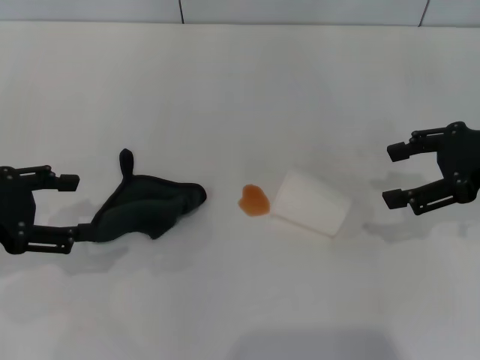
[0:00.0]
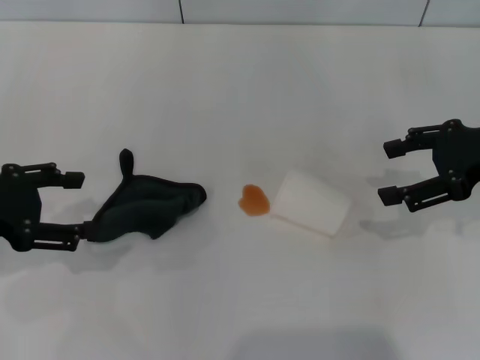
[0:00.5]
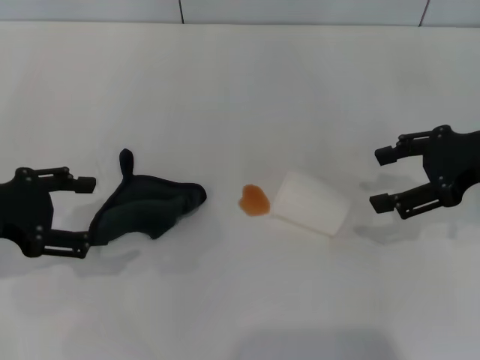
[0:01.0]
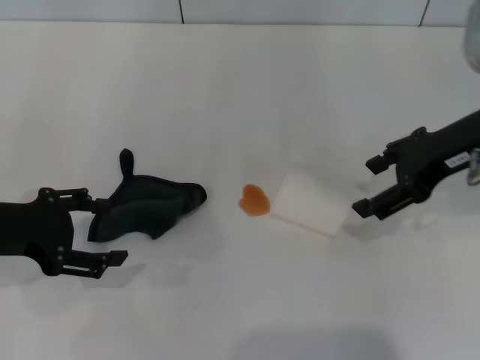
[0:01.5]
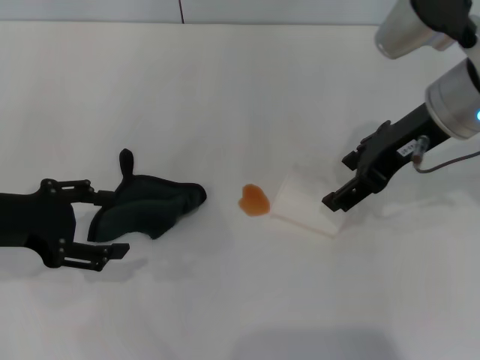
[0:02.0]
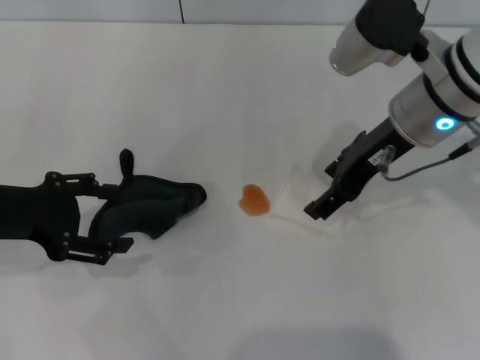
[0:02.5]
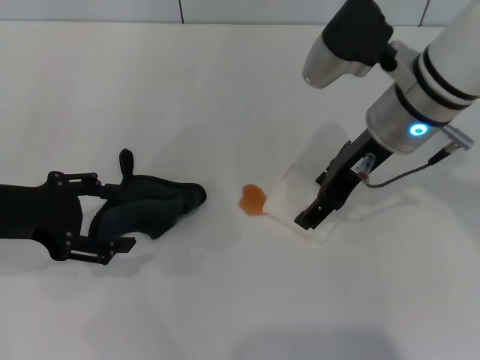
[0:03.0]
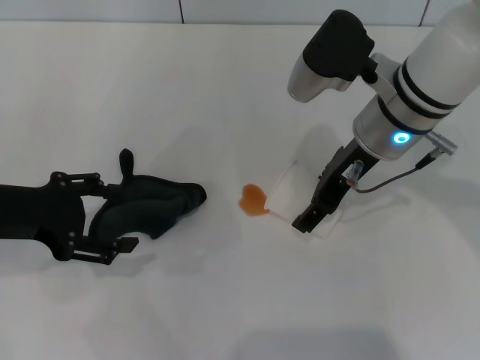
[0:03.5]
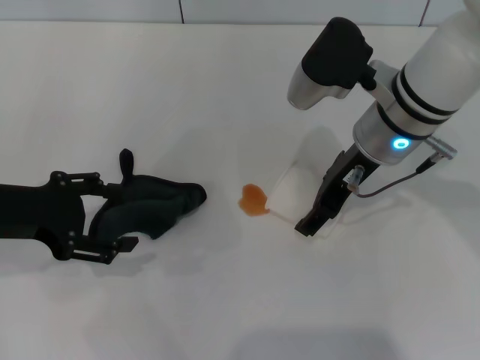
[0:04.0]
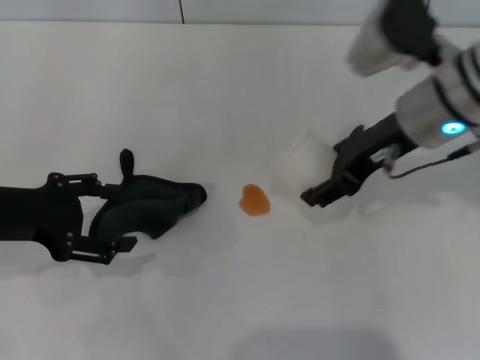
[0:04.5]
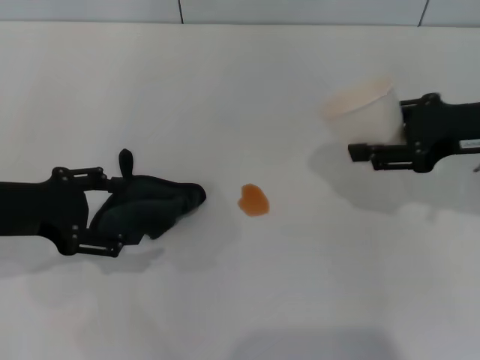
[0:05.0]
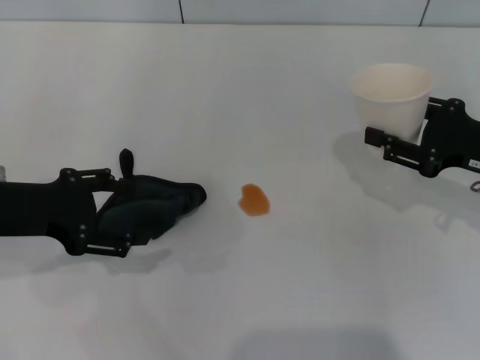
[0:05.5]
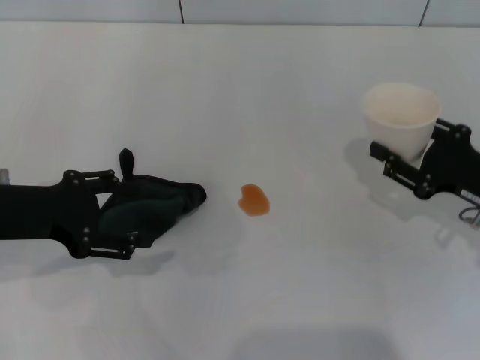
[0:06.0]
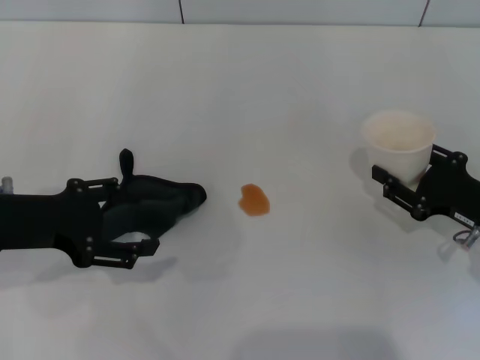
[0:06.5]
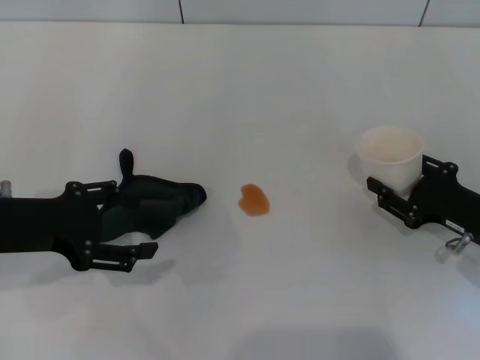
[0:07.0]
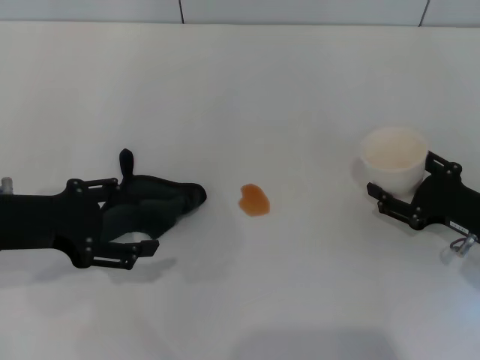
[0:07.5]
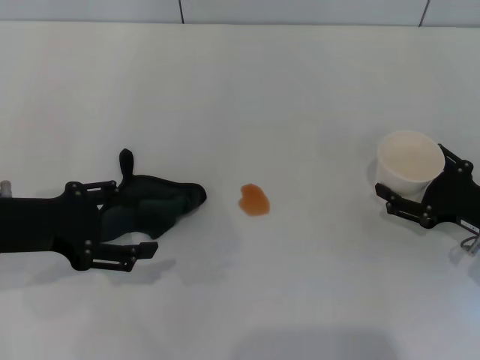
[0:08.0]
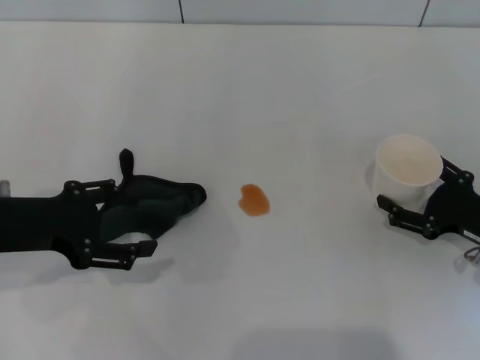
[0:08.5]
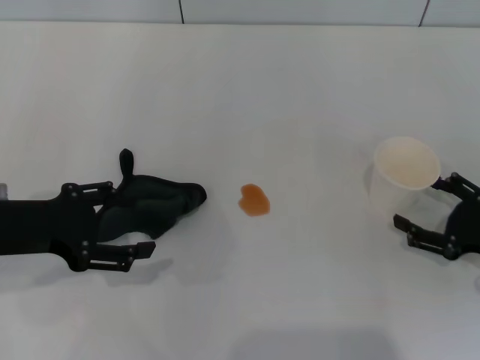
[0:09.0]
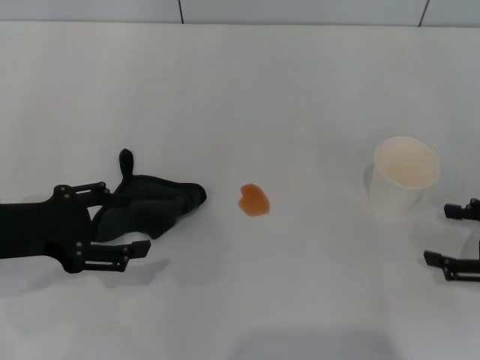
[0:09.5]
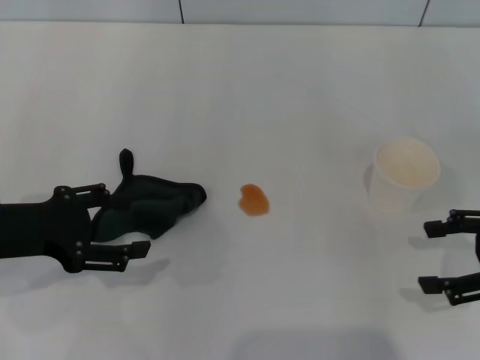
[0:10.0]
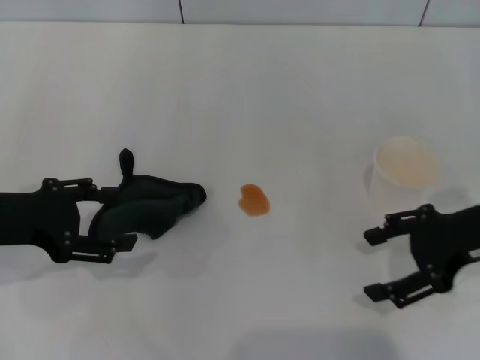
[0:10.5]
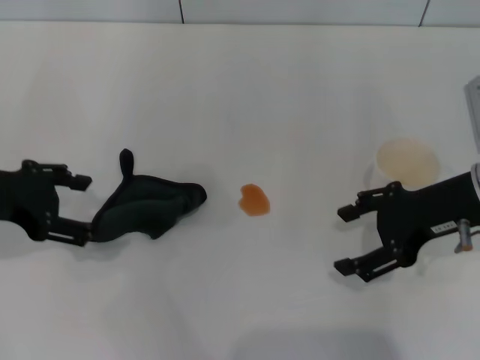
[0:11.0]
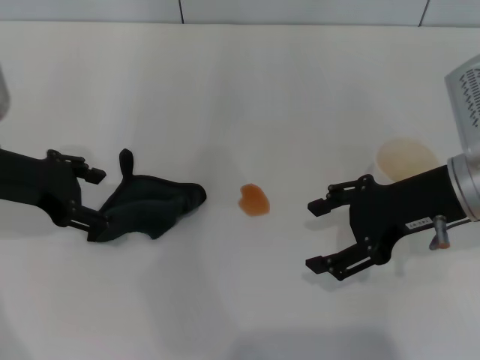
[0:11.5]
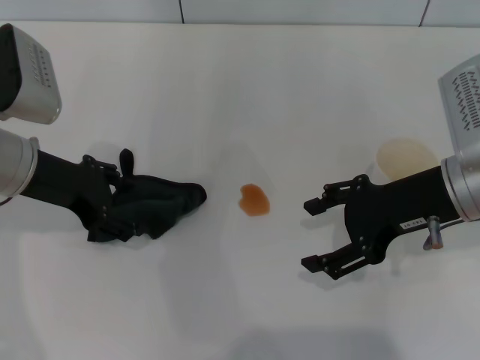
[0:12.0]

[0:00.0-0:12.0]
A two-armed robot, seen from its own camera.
Step, 0:00.0 to 0:04.0: Grasp the paper cup with the right gripper.
Step, 0:04.5 to 0:09.0: Stand the paper cup upright with the right gripper.
0:00.0 to 0:02.0: The right gripper travels to the left by about 10 cm.
0:02.0 to 0:04.0: The right gripper is displaced to the left by roughly 5 cm.
0:04.0 to 0:06.0: The right gripper moves to the right, downward and backward, about 20 cm, and closes.
0:06.0 to 0:08.0: The right gripper opens its fingers.
0:08.0 to 0:10.0: The right gripper goes about 10 cm upward.
0:10.0 to 0:12.0: The left gripper goes some 10 cm forward; the right gripper moves to the left and forward, some 15 cm.

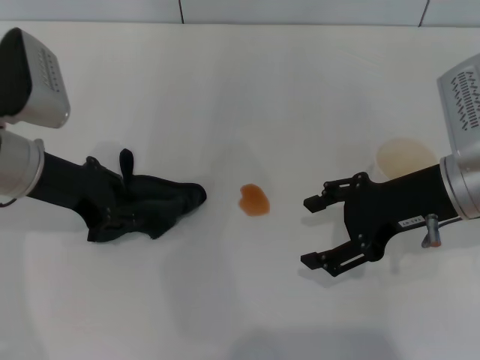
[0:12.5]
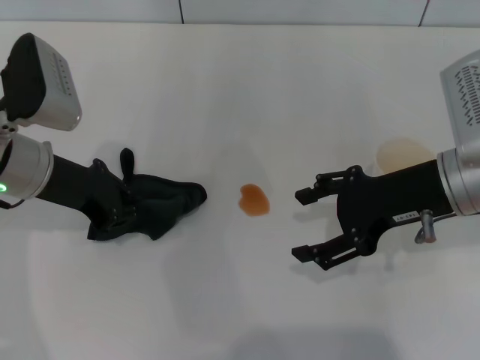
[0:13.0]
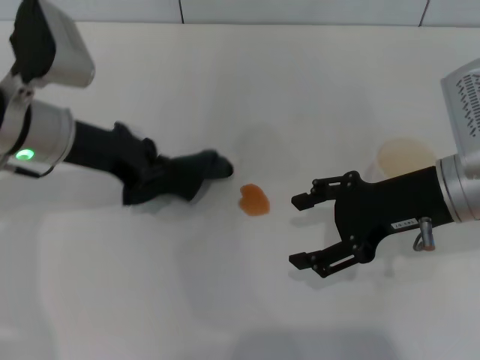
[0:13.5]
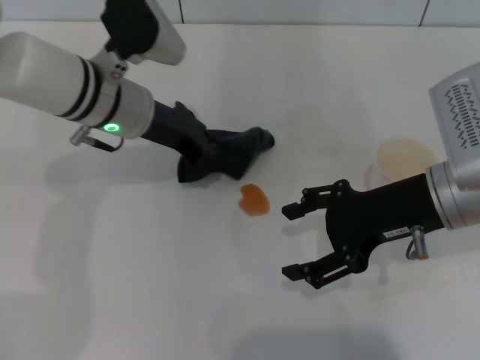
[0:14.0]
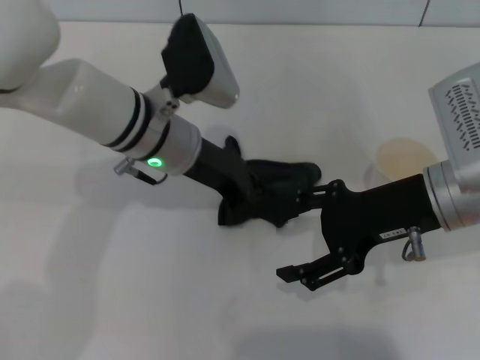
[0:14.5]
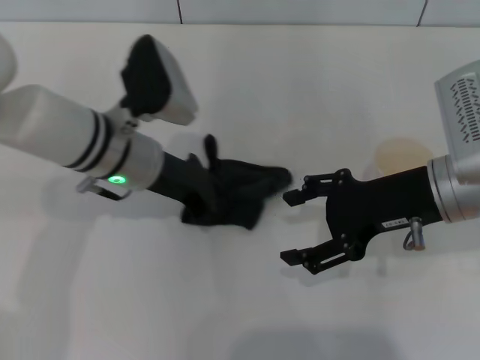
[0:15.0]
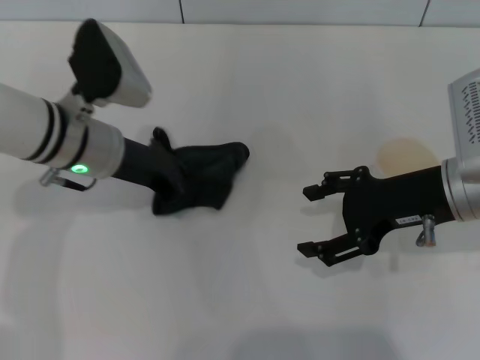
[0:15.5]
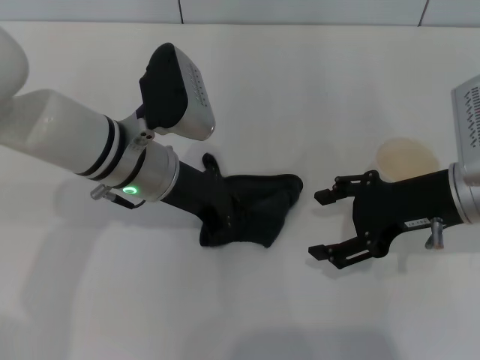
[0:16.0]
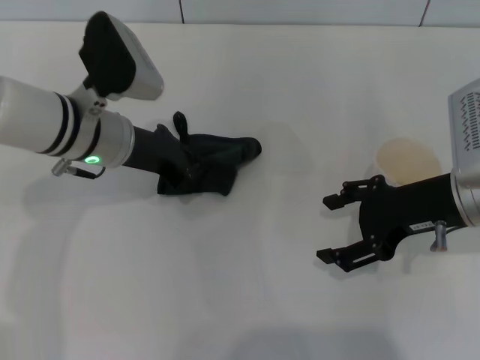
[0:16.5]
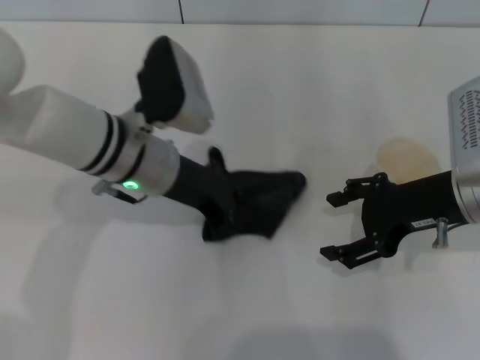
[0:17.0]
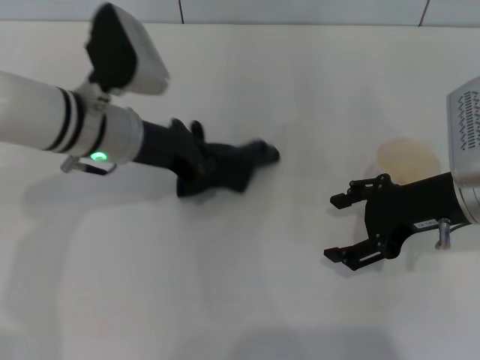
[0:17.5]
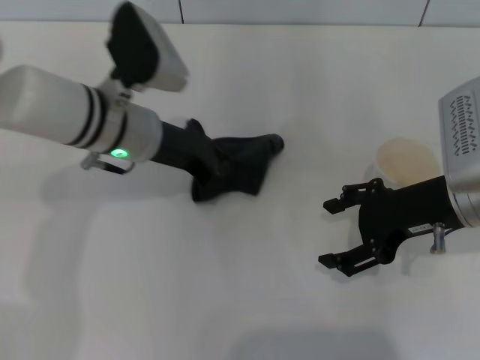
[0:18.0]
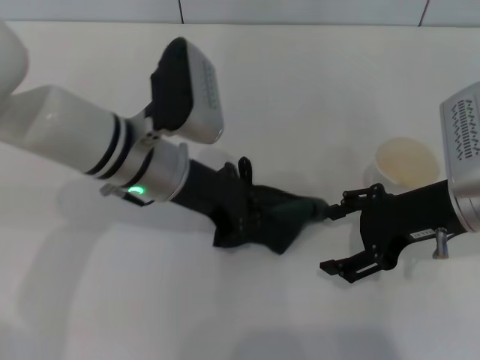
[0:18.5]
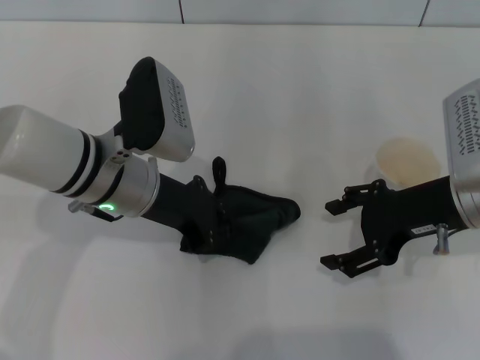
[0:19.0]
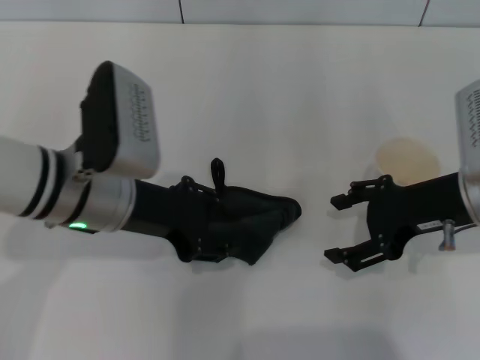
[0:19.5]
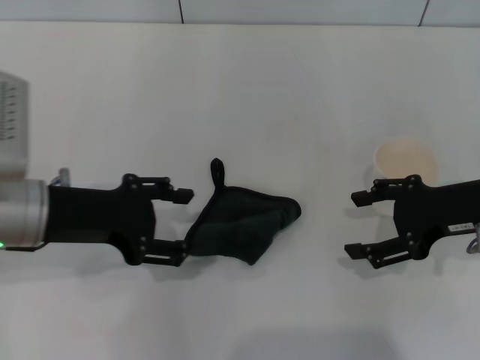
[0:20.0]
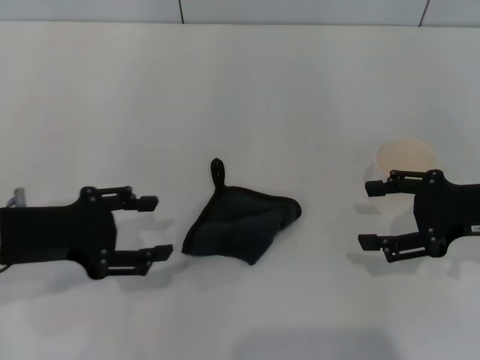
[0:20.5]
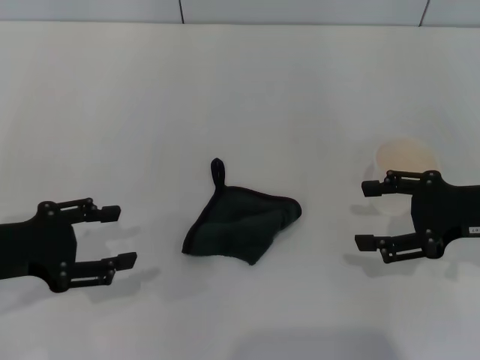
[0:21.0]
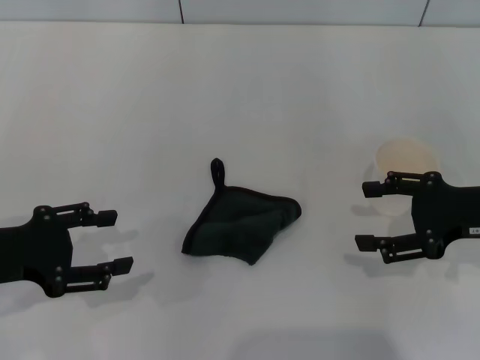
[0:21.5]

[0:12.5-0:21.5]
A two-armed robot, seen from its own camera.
Step, 0:13.5 to 0:18.0: Wipe the stains off the table with the left gripper.
Step, 0:18.5 to 0:19.5: Place the rag on the table with the left gripper.
0:12.5 to 0:14.5: The left gripper goes some 15 cm to the right, and closes up.
0:14.5 to 0:17.0: The left gripper moves left and right over roughly 5 cm, changing direction 3 times.
0:17.0 to 0:19.5: The left gripper heads backward, covering approximately 5 cm.
0:19.5 to 0:21.5: The left gripper moves to the left and backward, some 15 cm, and opens. The right gripper is displaced to the right by roughly 5 cm.
